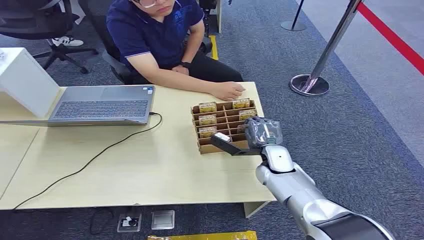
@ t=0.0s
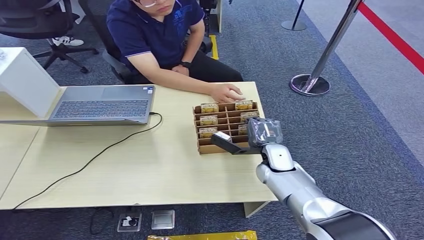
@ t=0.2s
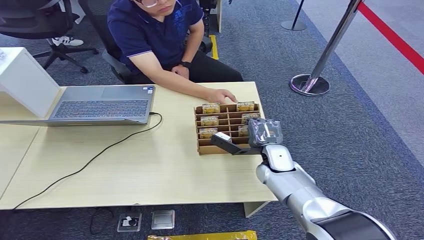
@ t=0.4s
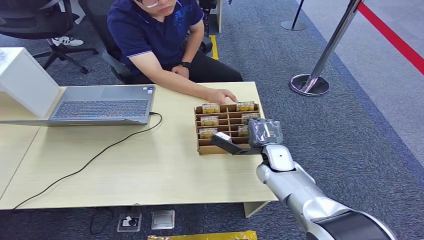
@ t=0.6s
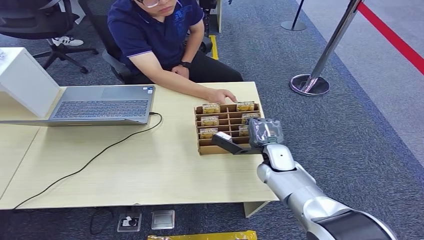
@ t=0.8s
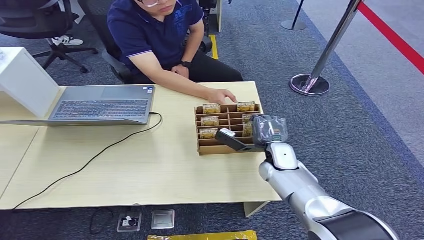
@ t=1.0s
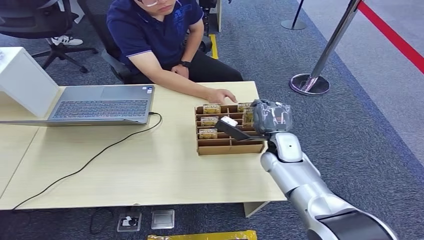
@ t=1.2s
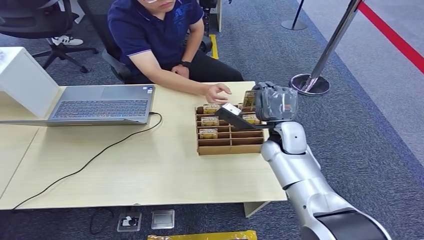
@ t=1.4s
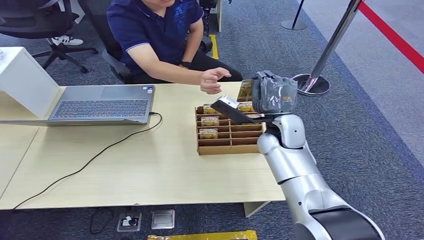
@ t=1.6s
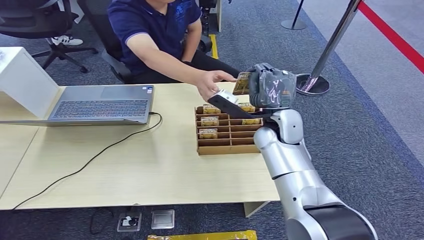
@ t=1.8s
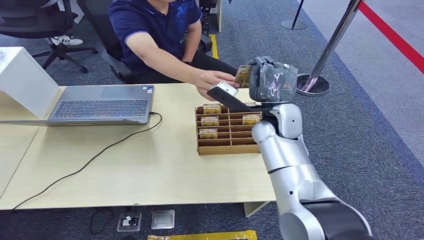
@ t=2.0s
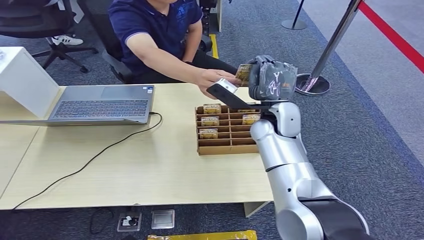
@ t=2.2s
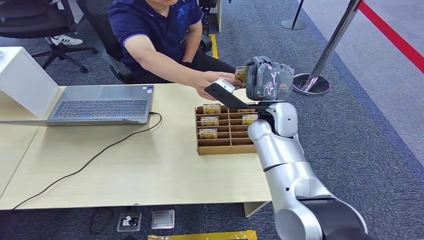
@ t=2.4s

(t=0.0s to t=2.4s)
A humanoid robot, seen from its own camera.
Step, t=0.0s - t=1.8s: Pick up the key card from the card box.
Step, t=2.0s - t=2.4s: Hand the key card to the target.
t=1.2s - t=2.4s: The right hand heads upward, covering approximately 10 cm.

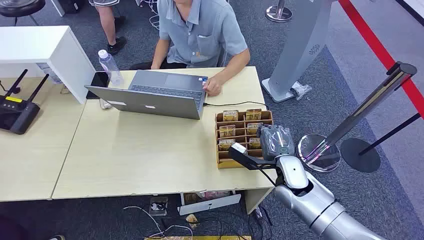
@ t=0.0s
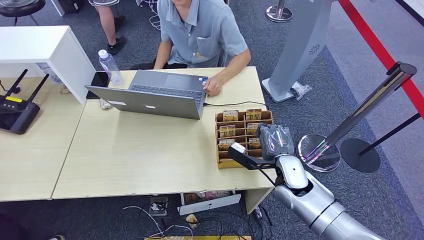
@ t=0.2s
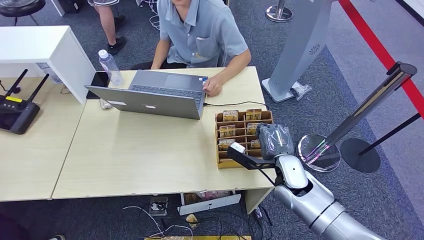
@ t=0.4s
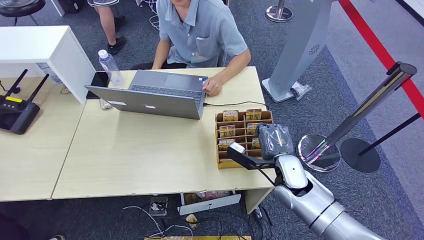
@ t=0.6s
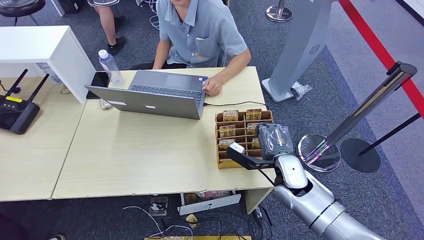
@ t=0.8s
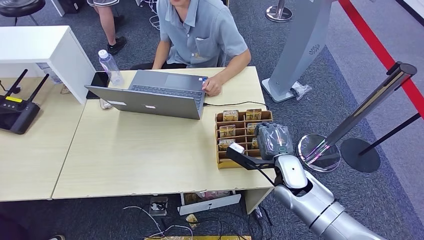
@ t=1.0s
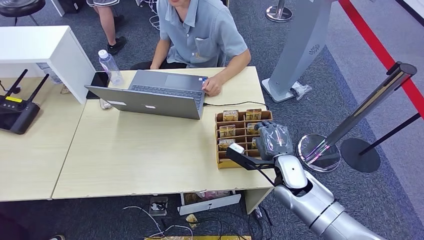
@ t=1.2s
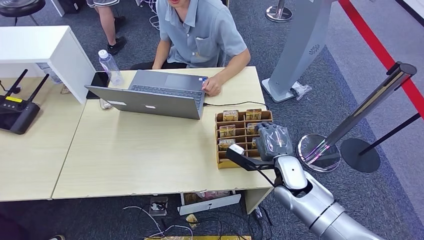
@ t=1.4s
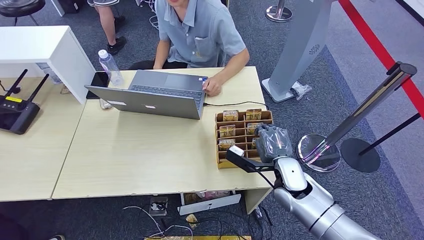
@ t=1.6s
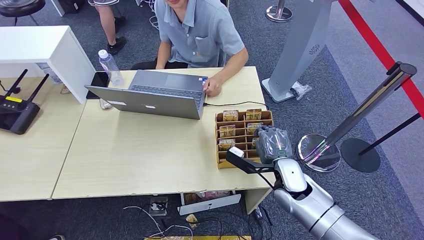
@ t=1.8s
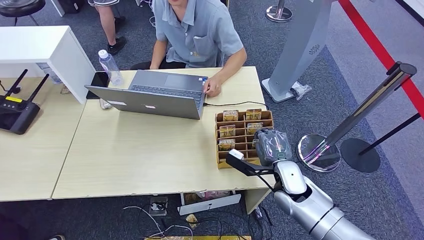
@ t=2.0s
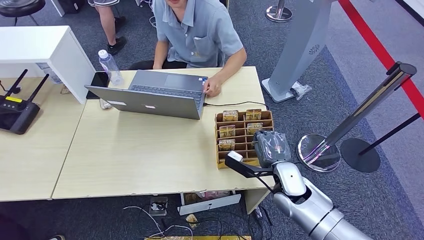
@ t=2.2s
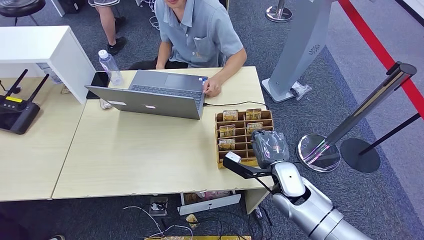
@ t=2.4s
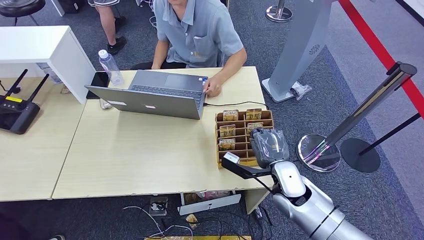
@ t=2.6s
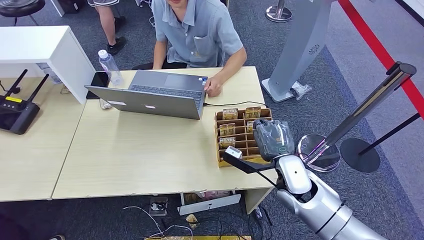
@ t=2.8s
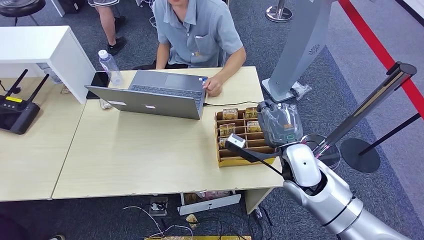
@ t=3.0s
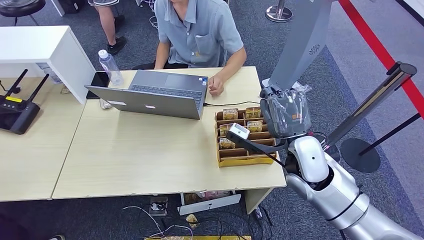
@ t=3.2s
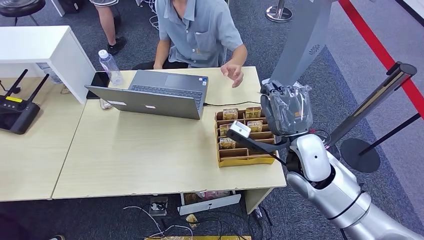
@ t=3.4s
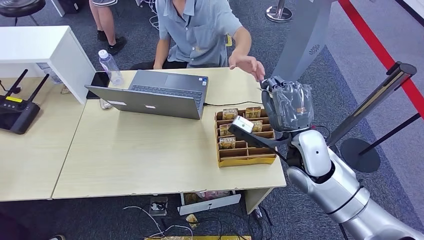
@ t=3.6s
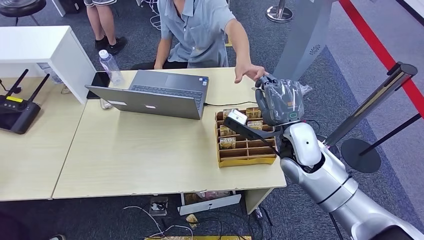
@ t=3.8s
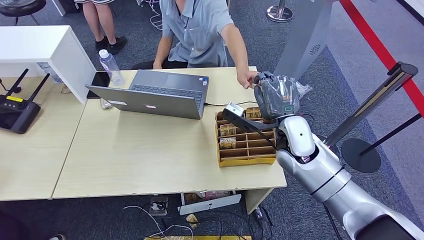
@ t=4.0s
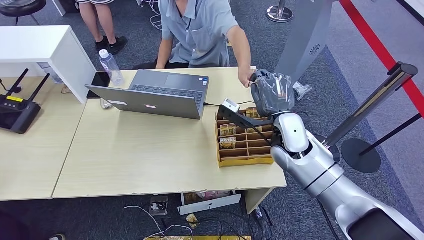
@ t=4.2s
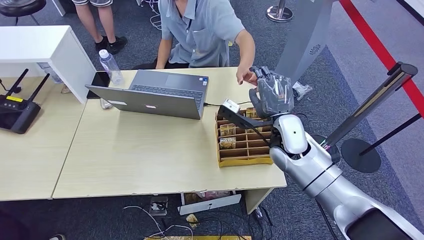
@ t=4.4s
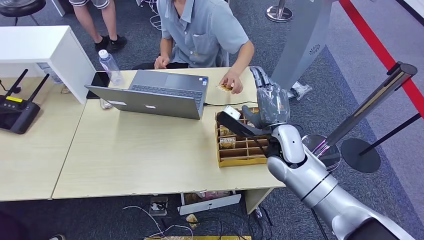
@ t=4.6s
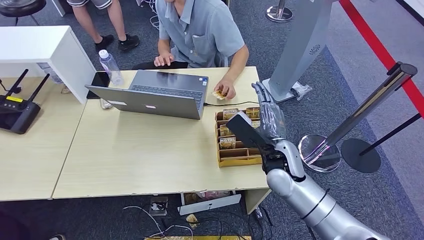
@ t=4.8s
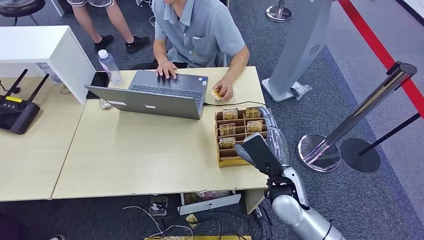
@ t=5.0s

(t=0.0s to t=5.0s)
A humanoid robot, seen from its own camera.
Step, t=0.0s - t=2.8s: Pick up the key card from the card box.
Step, t=3.0s - t=4.8s: Hand the key card to the target.
t=1.6s - t=3.4s: The right hand heads upward, covering about 10 cm.
t=3.4s - t=5.0s: The right hand shifts roughly 10 cm downward, and travels forward and back again, about 5 cm each way.

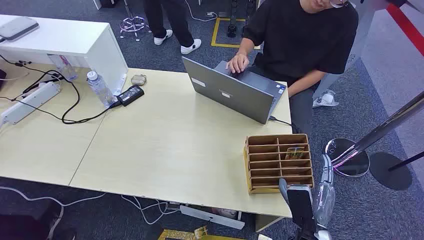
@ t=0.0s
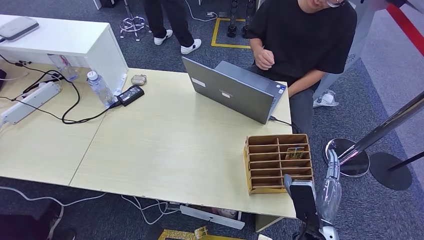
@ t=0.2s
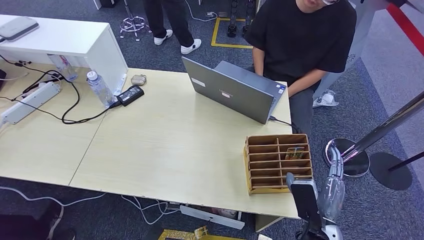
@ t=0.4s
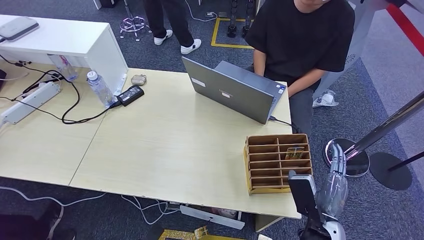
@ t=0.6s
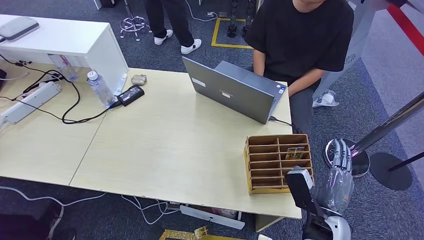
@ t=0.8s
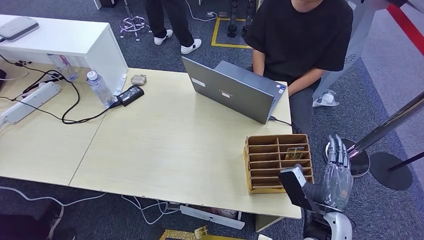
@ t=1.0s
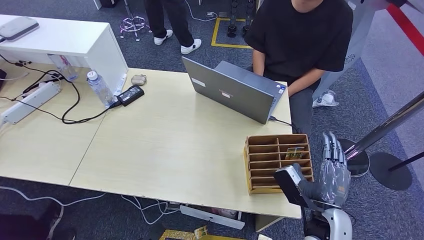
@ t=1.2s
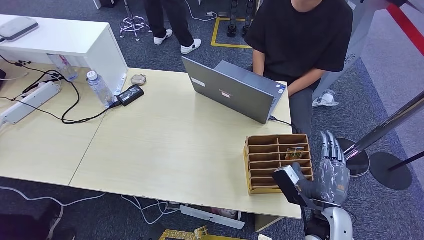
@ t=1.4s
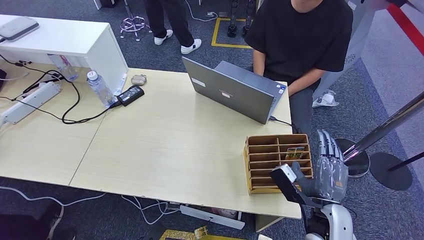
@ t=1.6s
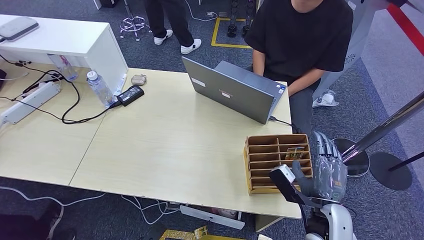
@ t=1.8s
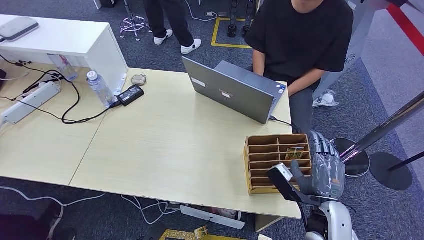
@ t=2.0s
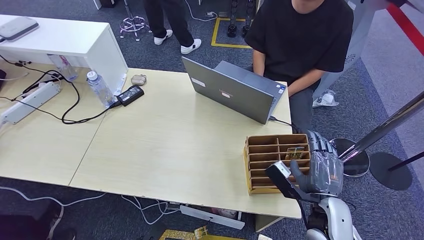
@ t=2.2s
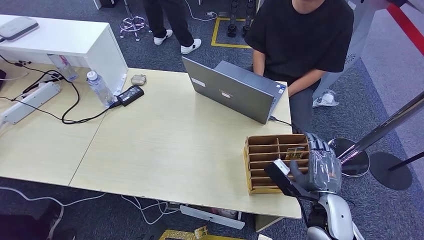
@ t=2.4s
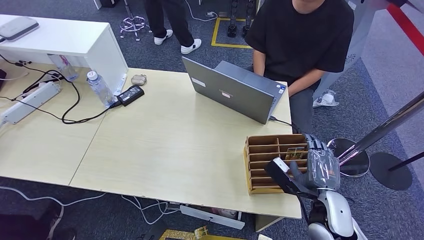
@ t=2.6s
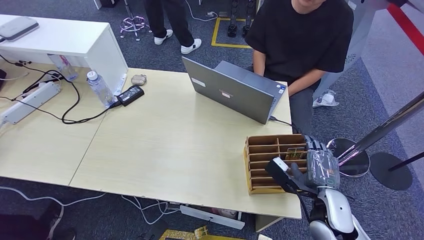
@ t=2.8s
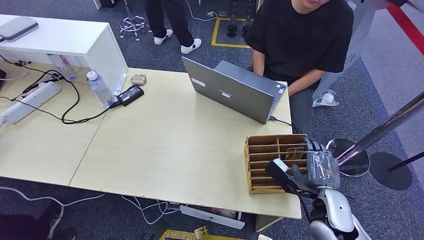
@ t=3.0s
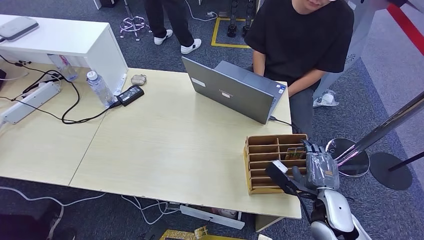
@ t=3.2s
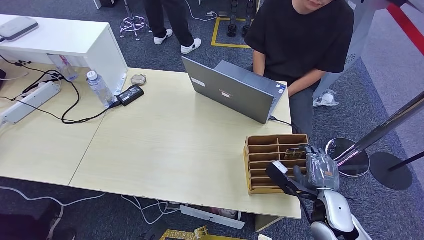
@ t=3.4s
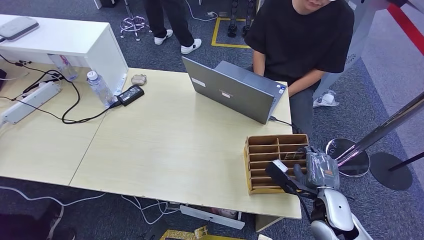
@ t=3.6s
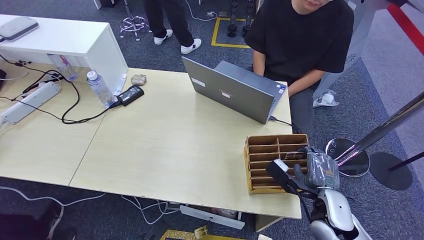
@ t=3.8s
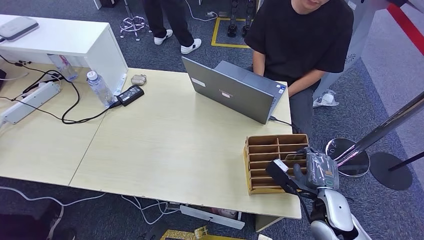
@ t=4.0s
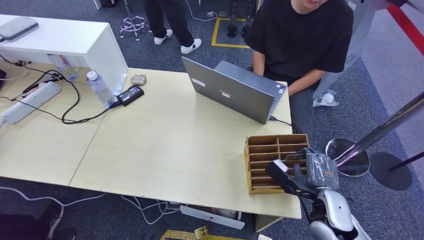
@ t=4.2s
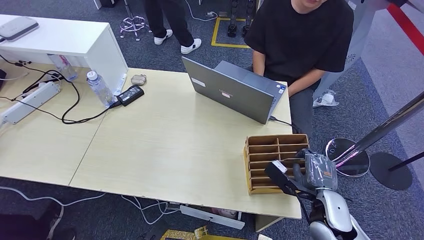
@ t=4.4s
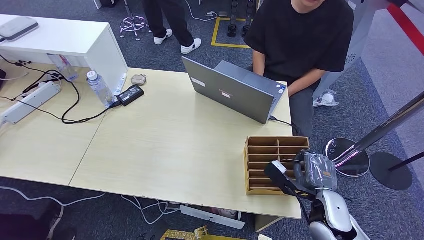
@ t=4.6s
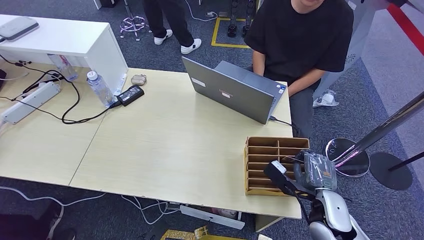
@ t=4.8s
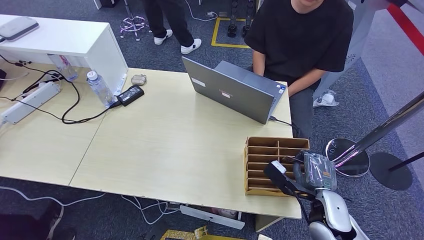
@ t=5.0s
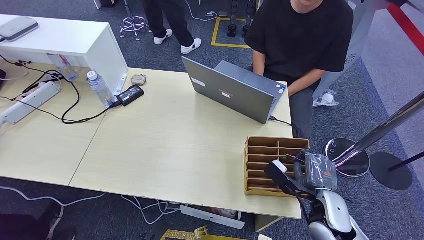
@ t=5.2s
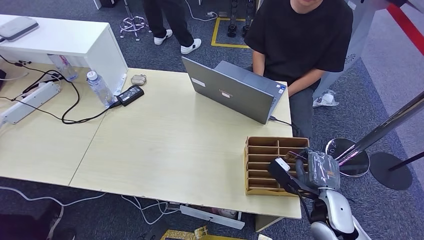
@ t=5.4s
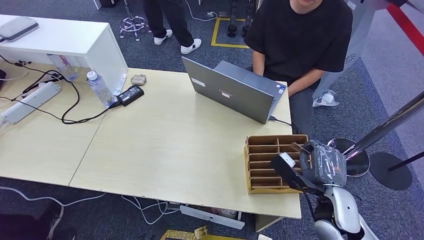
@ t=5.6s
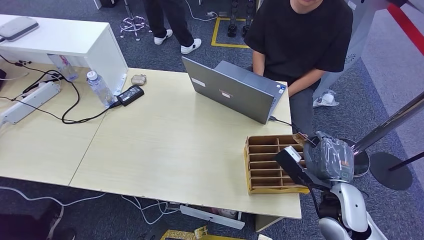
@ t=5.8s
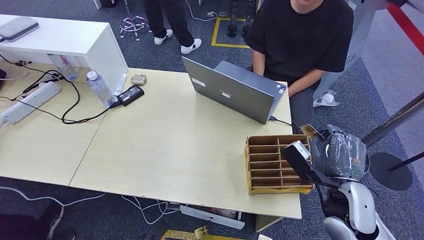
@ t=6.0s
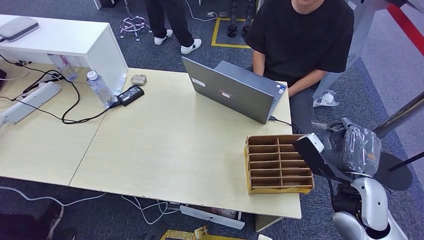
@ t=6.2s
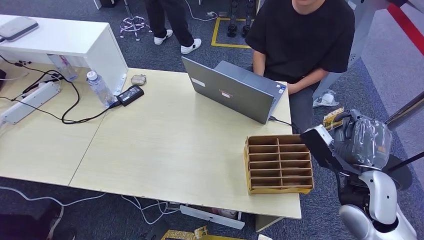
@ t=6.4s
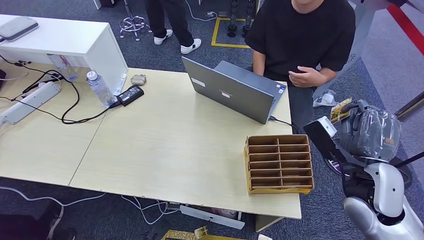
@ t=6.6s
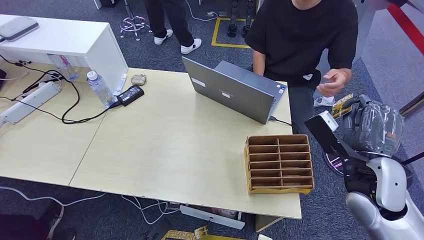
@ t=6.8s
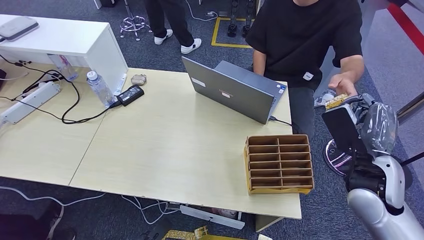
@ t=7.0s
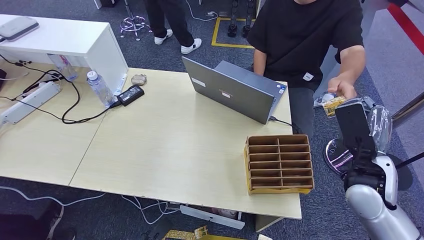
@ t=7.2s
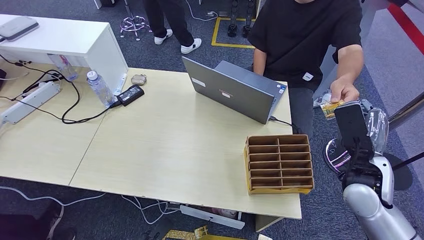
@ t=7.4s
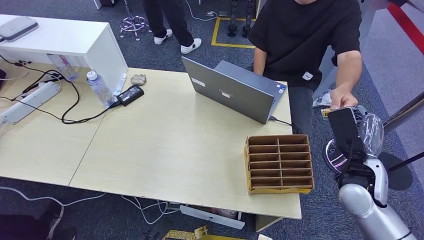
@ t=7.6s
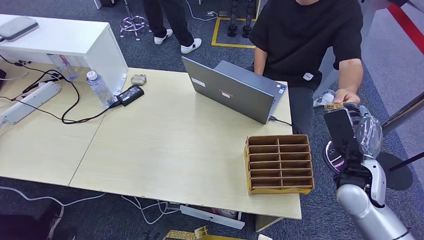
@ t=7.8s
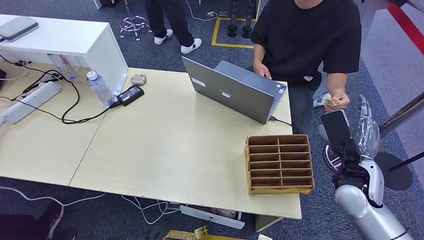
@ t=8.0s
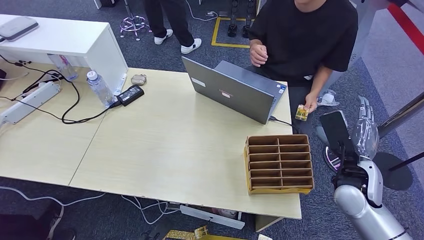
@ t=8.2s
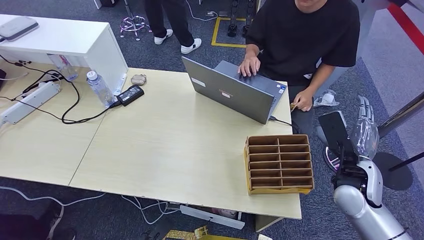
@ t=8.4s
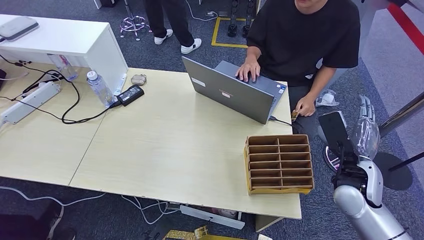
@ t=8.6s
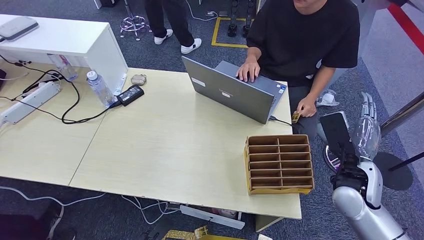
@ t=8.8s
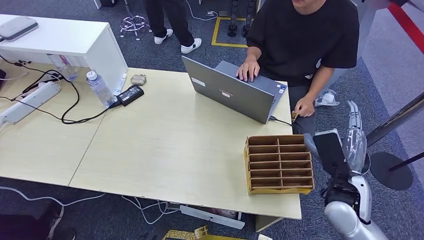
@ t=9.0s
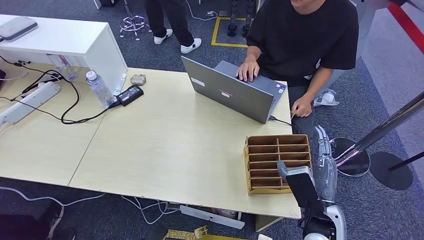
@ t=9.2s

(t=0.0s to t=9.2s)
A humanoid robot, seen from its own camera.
Step, t=0.0s - t=6.4s: Pick up the key card from the card box.
Step, t=6.6s - t=9.2s: Hand the key card to the target.
t=3.0s - t=4.6s: Both hands stay put.
t=4.6s - t=6.2s: The right hand moves upward, approximately 10 cm.
t=6.2s - t=7.6s: The right hand is displaced forward by approximately 5 cm.
t=7.6s - t=9.2s: The right hand travels backward, downward and to the left by approximately 15 cm.
